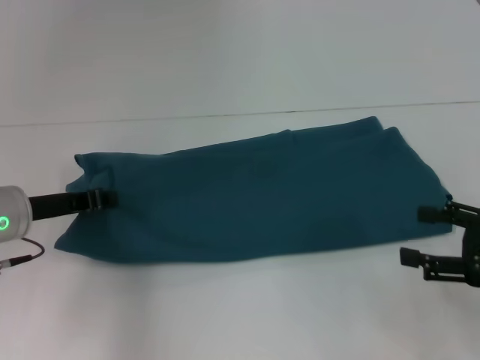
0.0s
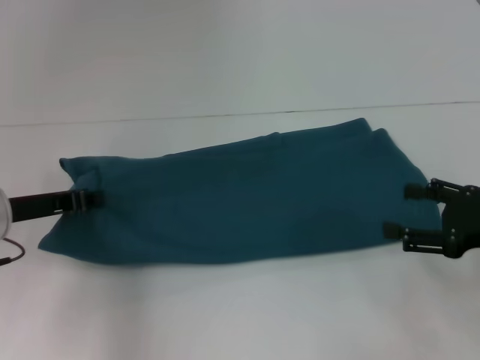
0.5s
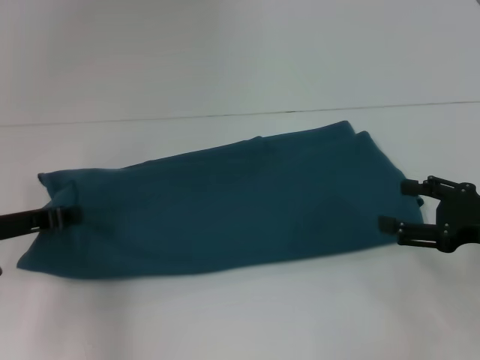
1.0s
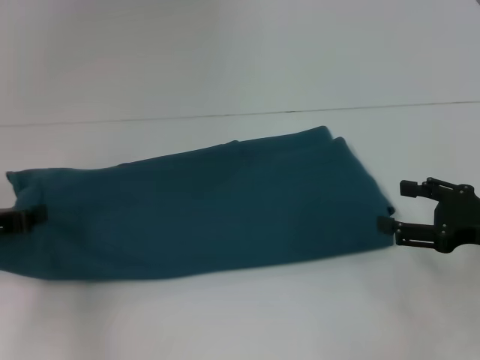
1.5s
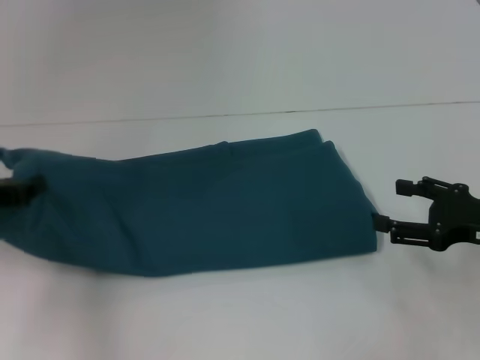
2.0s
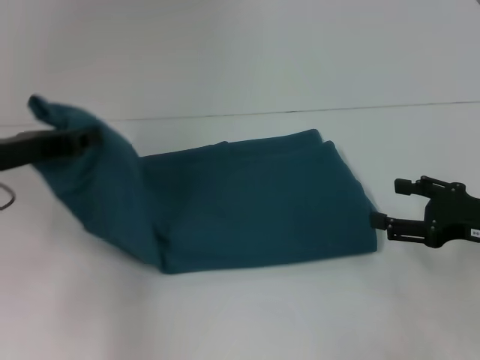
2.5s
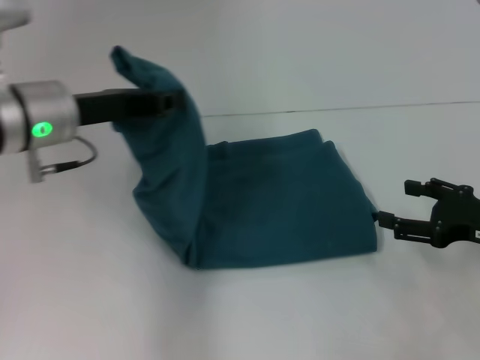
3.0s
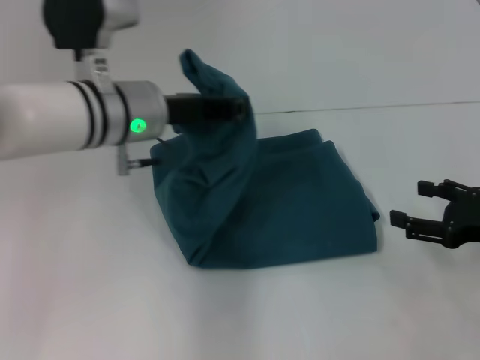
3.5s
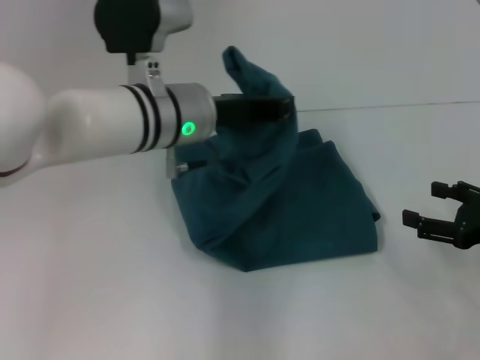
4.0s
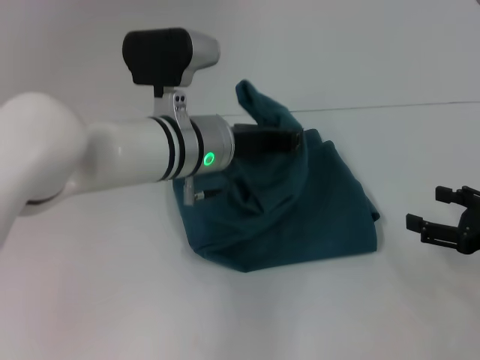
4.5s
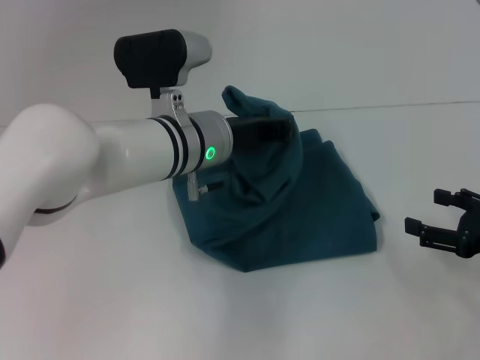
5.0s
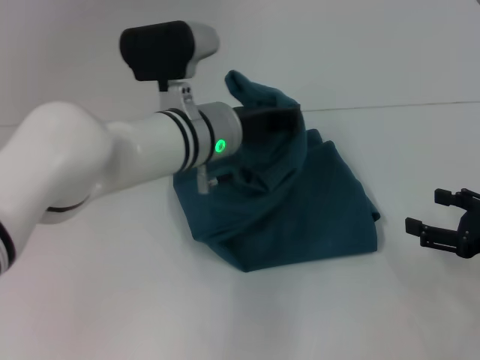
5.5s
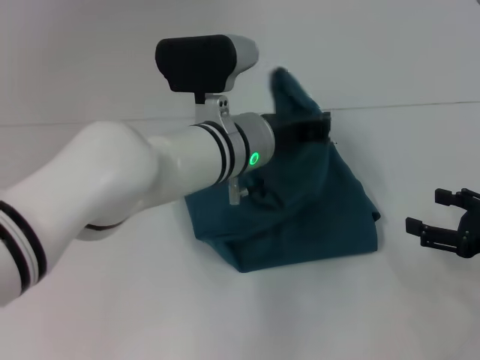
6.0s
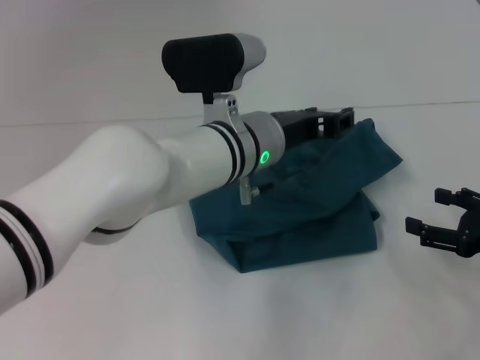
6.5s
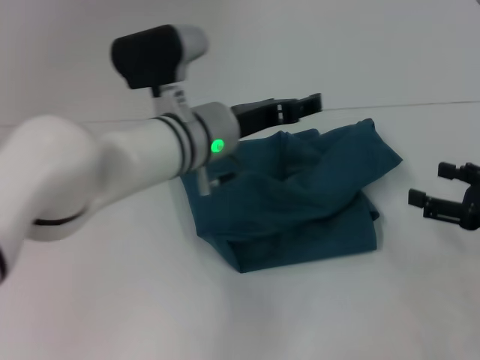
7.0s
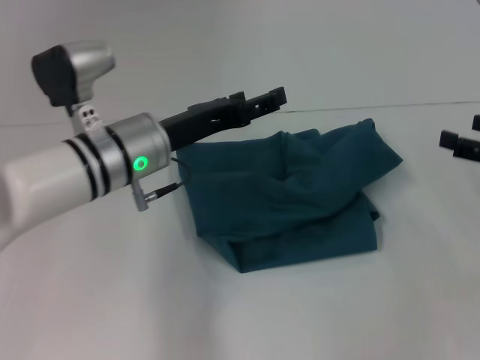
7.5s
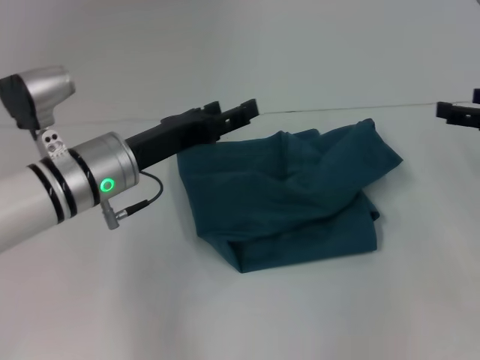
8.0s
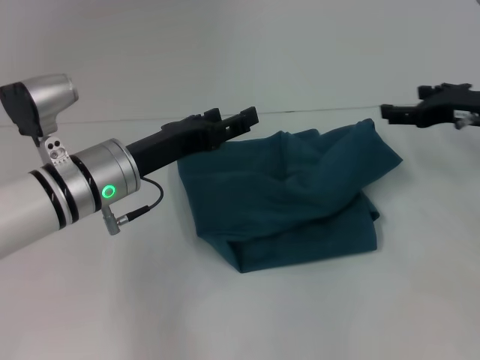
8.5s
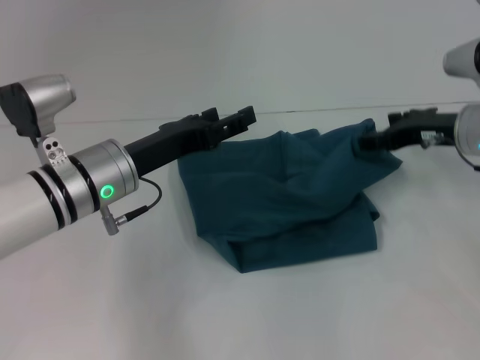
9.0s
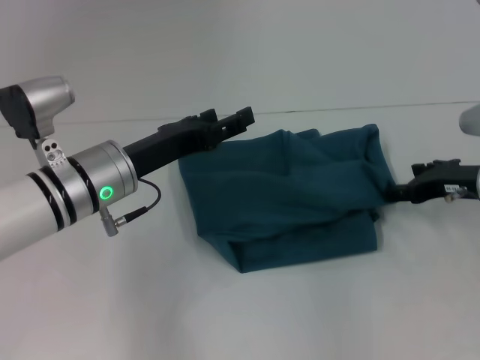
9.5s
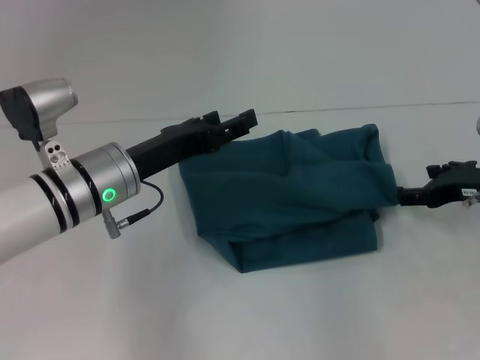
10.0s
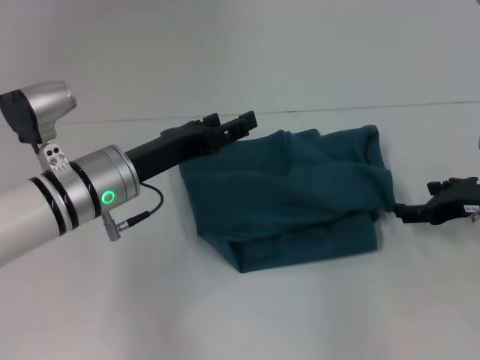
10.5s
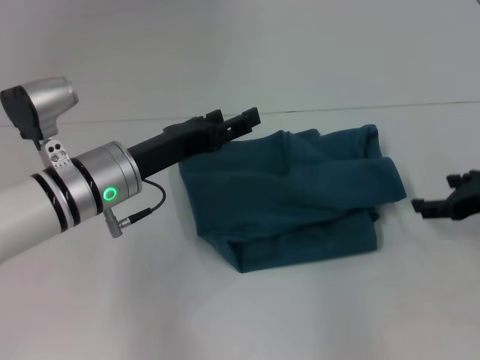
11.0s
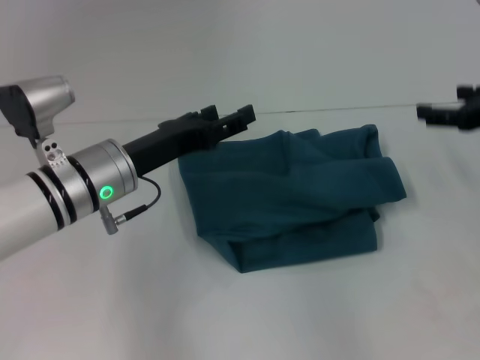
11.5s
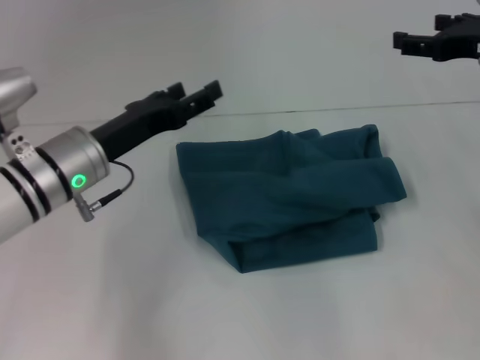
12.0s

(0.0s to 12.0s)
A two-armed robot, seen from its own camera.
Step, 0.0s - 7.5s: Fold the clothes to the left.
0.0s - 2.0s: The left gripper is displaced to the left by some 5 cm.
2.0s - 4.0s: The left gripper heads to the right, covering approximately 25 cm.
4.0s - 6.0s: The left gripper shifts approximately 5 cm to the right.
6.0s - 8.0s: The right gripper moves forward and upward, some 10 cm, while the left gripper travels to the left by approximately 15 cm, and opens up.
8.0s - 10.0s: The right gripper travels downward and to the left by some 10 cm.
10.0s - 12.0s: The right gripper is displaced upward by some 10 cm.

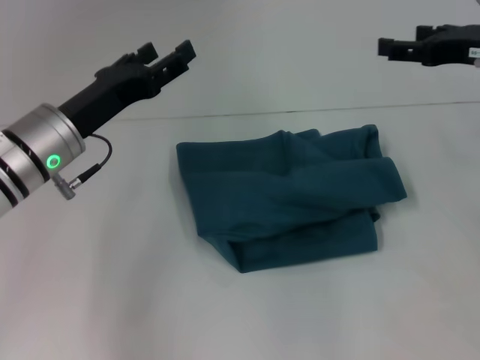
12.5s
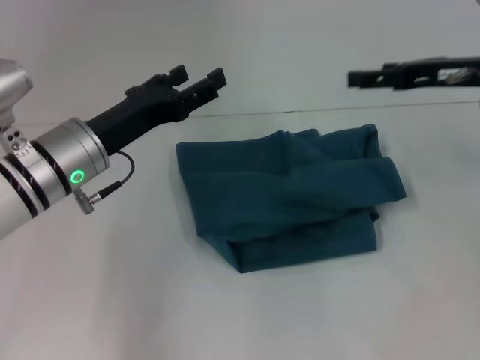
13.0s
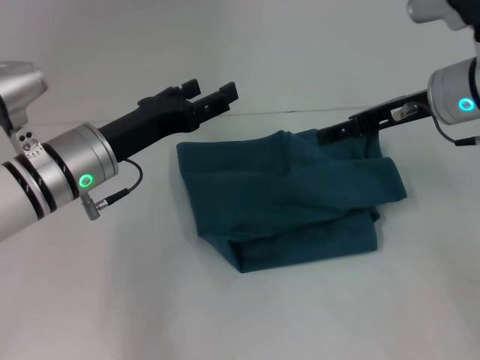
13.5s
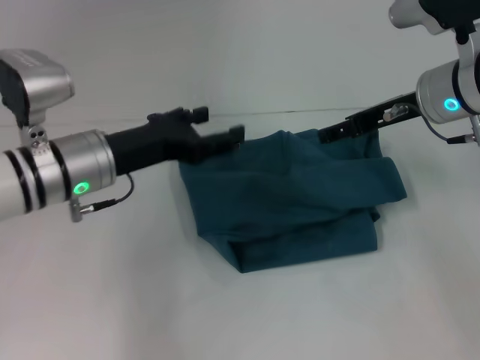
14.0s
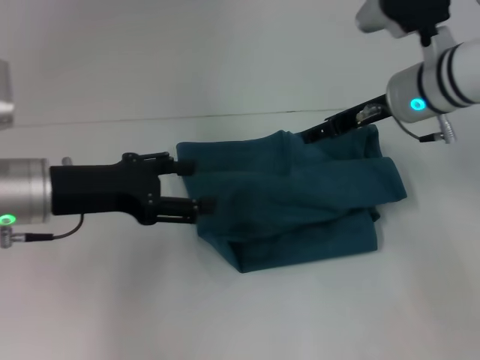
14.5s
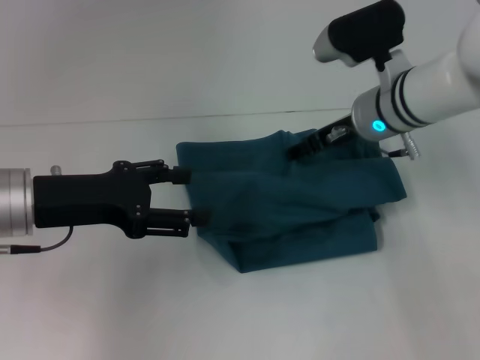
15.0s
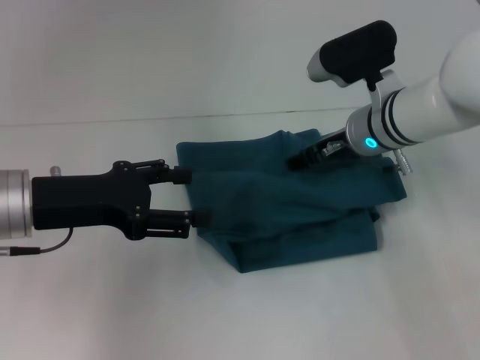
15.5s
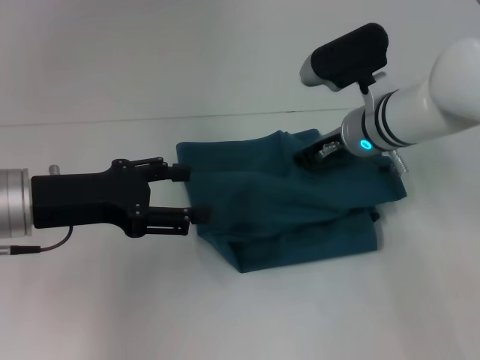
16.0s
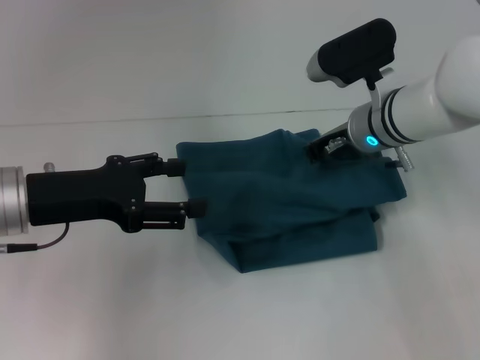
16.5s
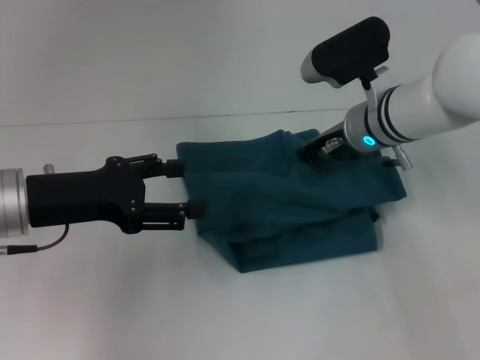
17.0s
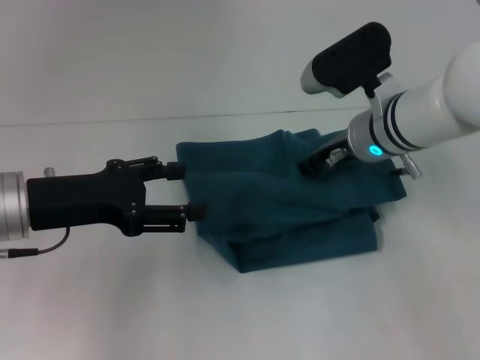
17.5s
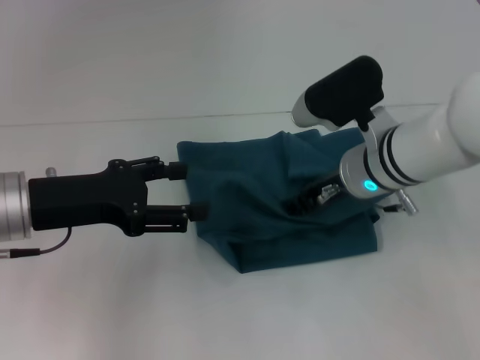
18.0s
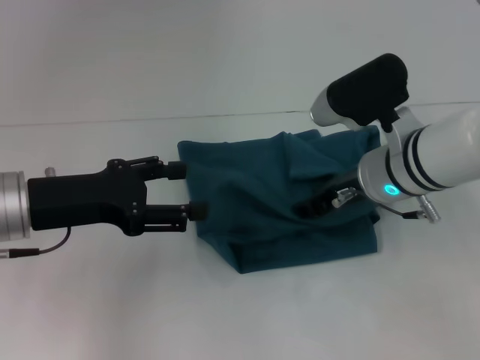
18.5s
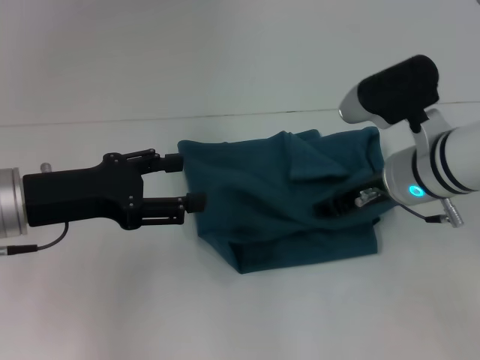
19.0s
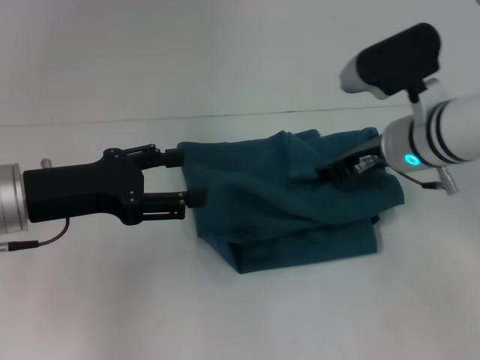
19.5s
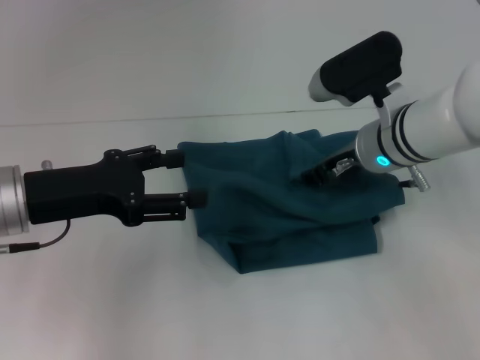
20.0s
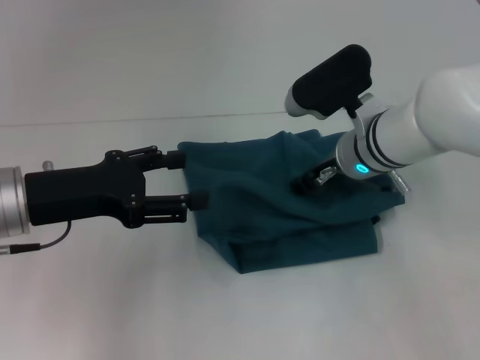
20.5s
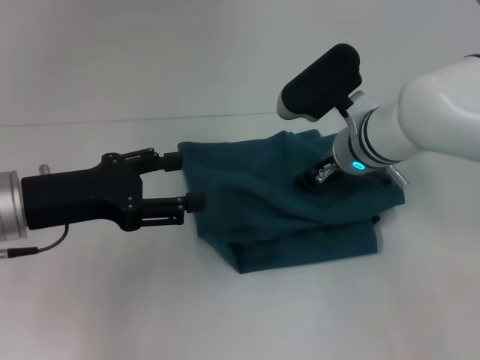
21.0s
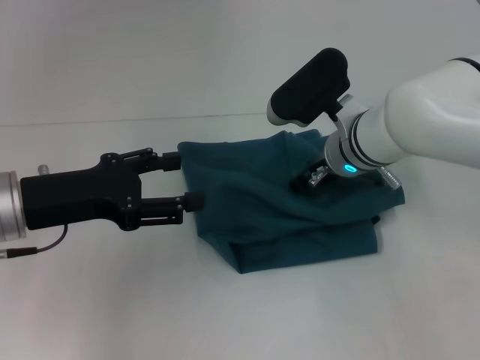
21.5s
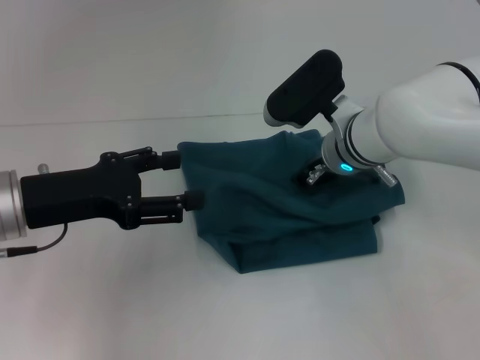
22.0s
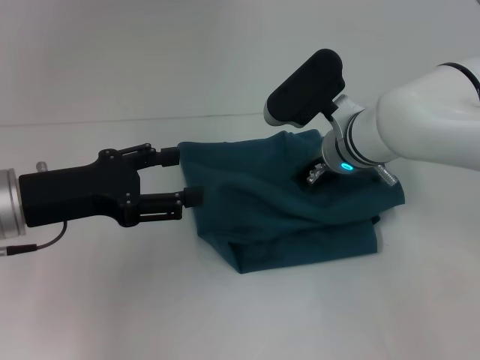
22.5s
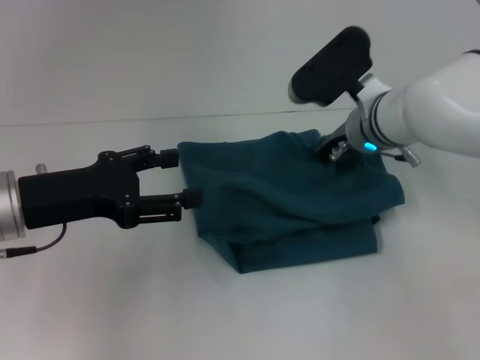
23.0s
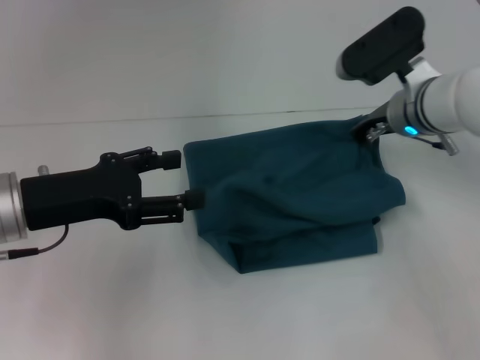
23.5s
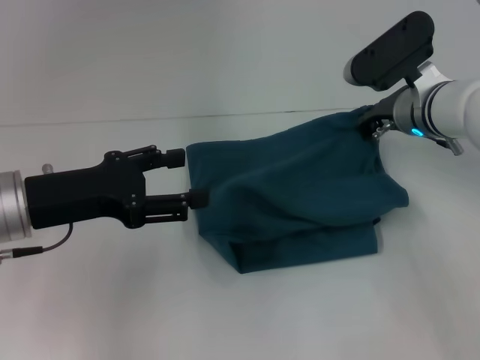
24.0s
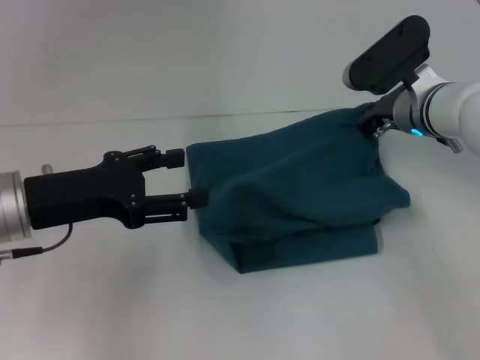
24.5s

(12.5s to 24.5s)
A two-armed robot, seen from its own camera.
12.5s - 14.5s: The right gripper heads to the left, covering about 10 cm.
14.5s - 16.5s: The right gripper moves about 5 cm, and closes its fingers.
16.5s - 18.5s: The right gripper travels backward by approximately 10 cm, and opens up.
18.5s - 20.5s: The right gripper ends up approximately 5 cm from where it was.
20.5s - 22.5s: The right gripper closes.
22.5s - 24.5s: The right gripper heads to the right, covering about 10 cm.

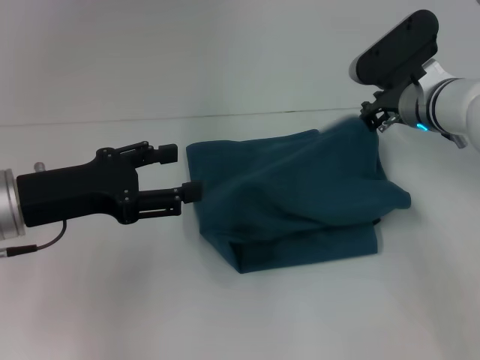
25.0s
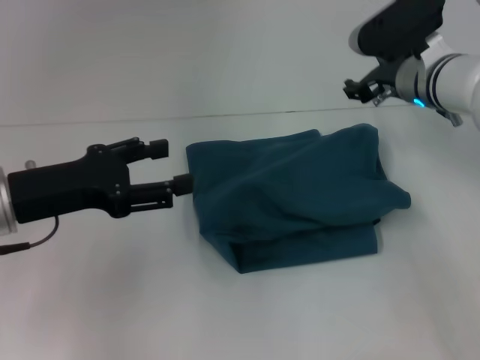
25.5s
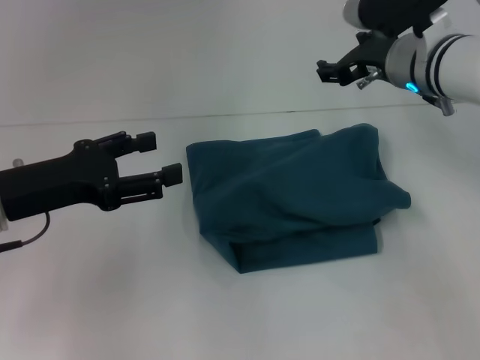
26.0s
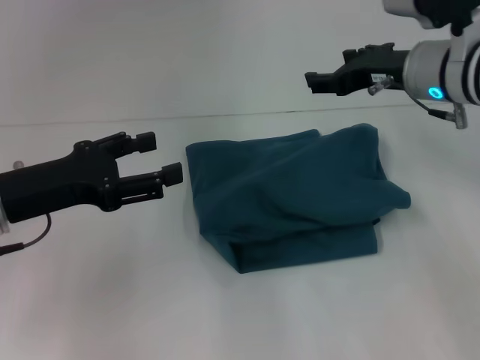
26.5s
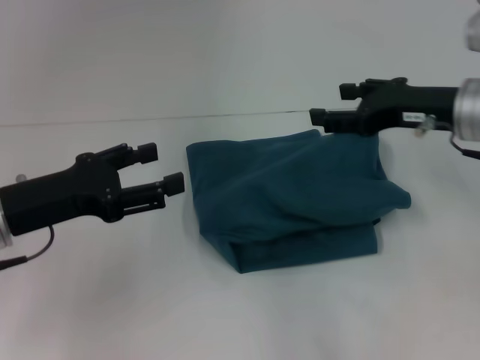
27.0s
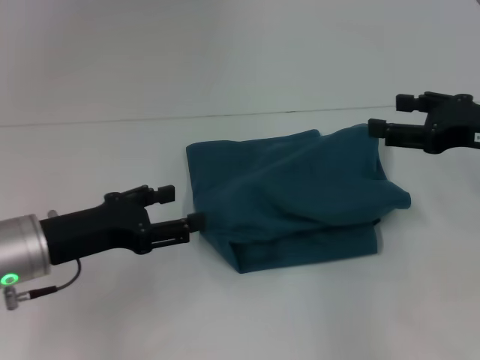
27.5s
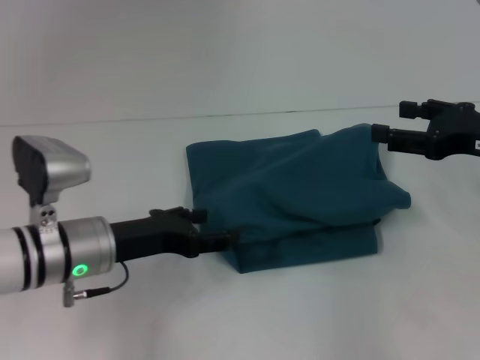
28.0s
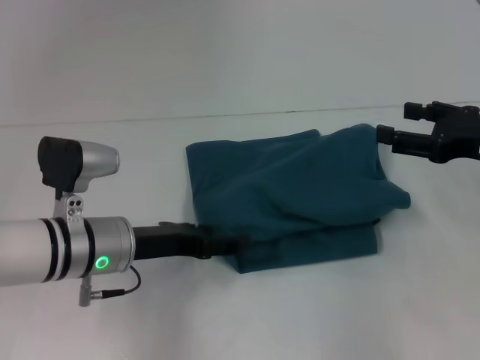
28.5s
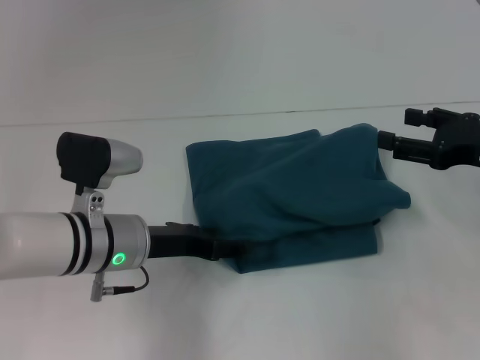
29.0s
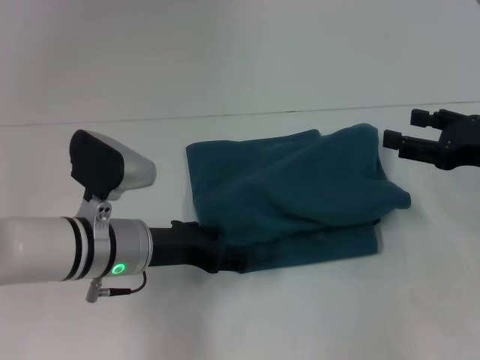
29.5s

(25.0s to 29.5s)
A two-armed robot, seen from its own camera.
25.0s - 27.0s: The right gripper shifts about 10 cm backward and upward, and opens.
27.0s - 29.5s: The left gripper shifts approximately 10 cm to the right and downward, while the right gripper goes approximately 10 cm to the right.
